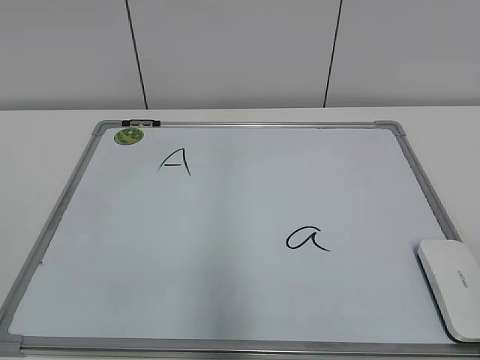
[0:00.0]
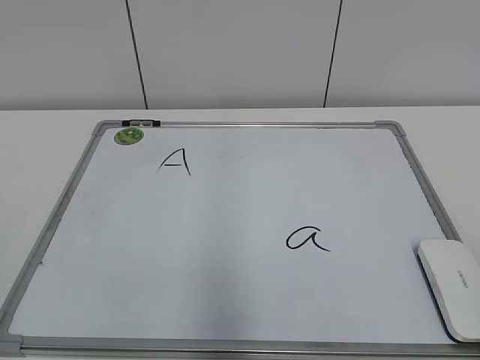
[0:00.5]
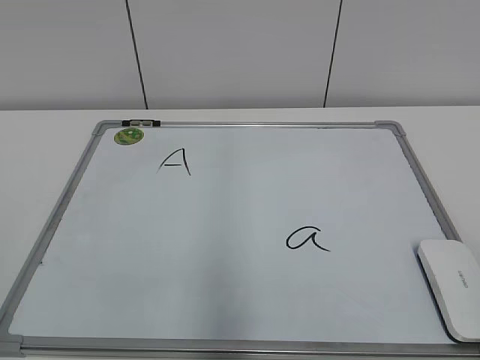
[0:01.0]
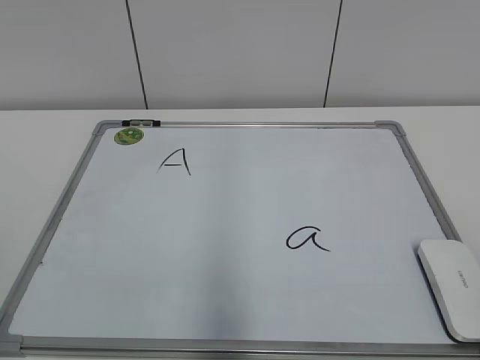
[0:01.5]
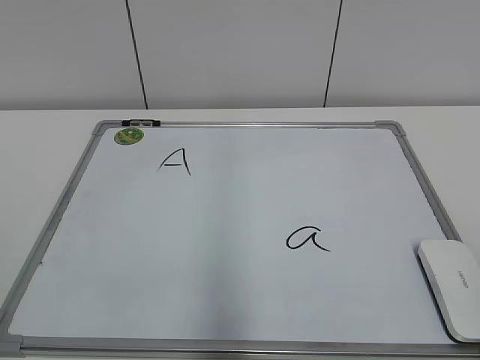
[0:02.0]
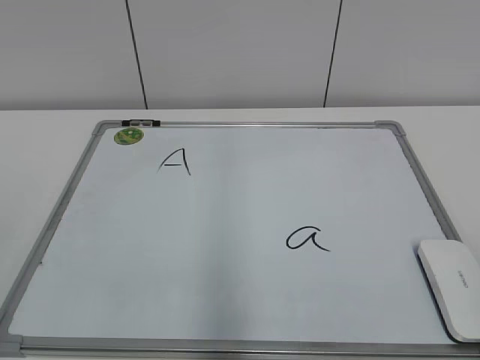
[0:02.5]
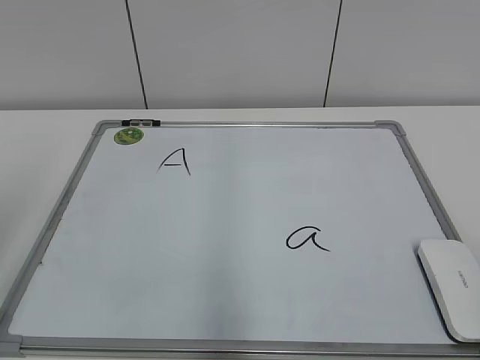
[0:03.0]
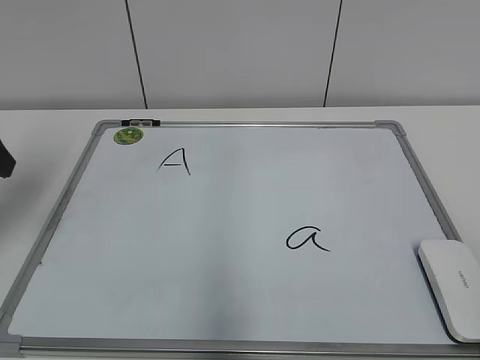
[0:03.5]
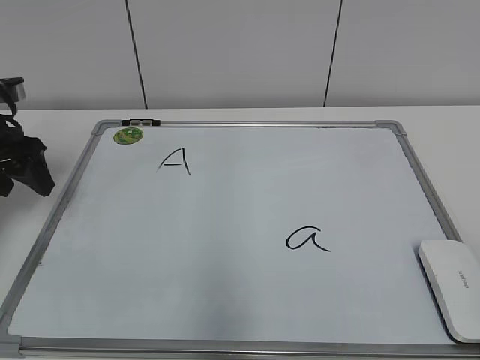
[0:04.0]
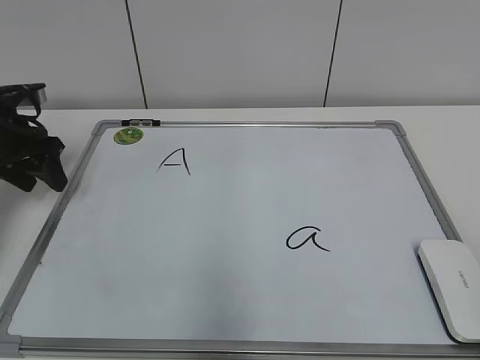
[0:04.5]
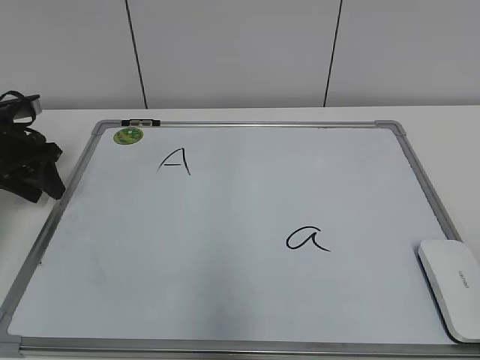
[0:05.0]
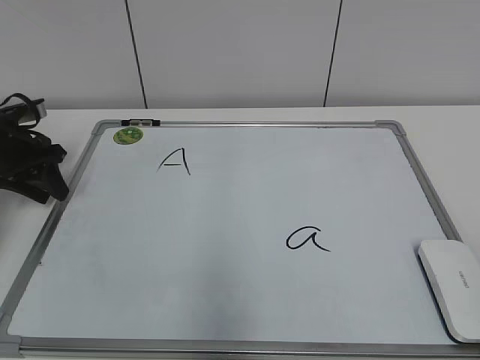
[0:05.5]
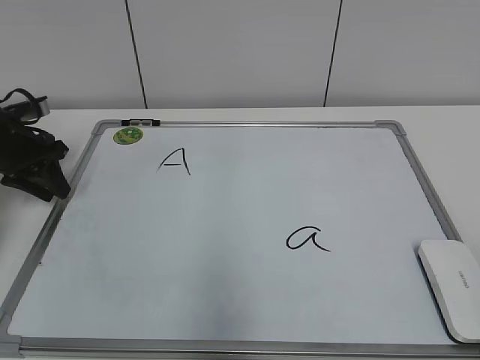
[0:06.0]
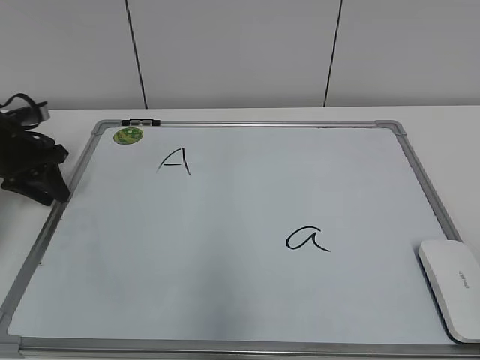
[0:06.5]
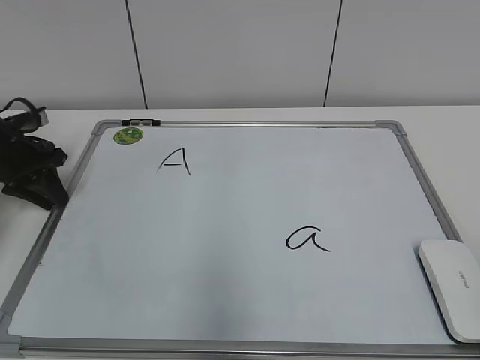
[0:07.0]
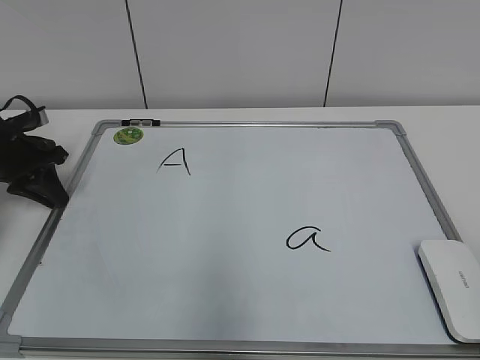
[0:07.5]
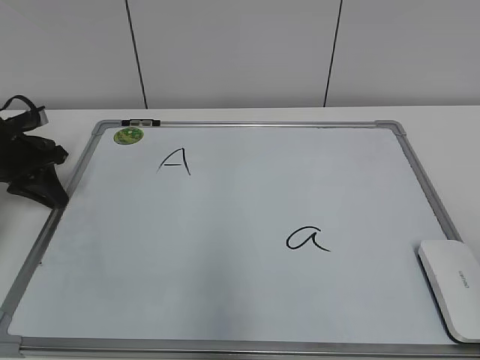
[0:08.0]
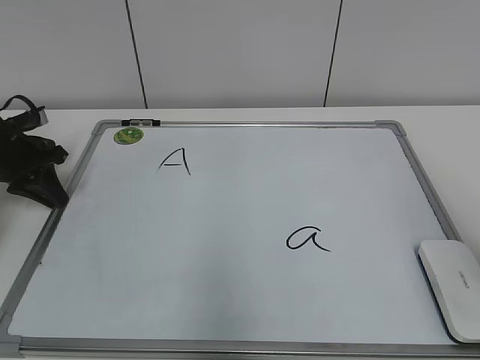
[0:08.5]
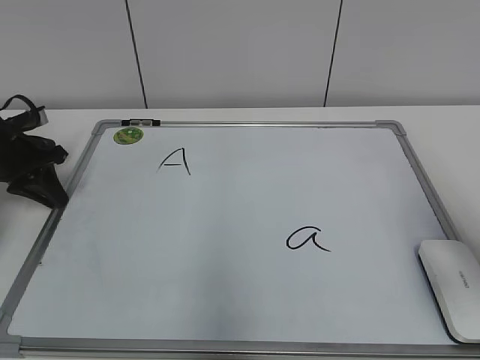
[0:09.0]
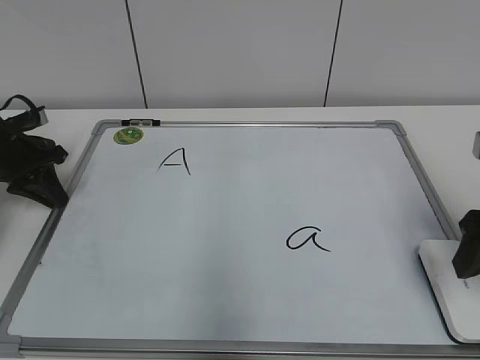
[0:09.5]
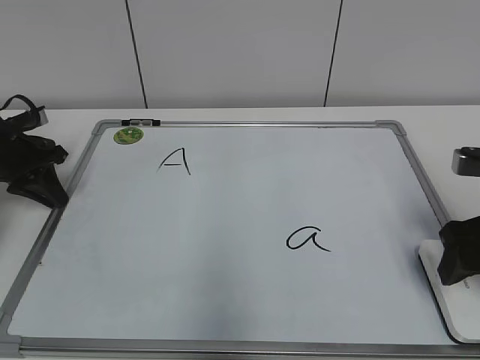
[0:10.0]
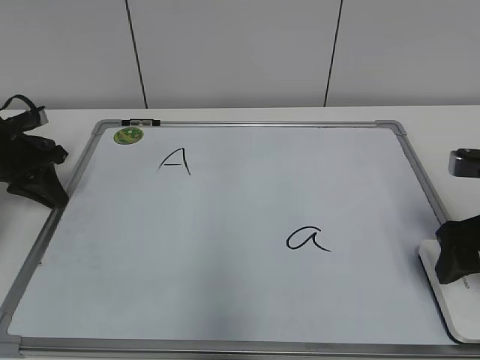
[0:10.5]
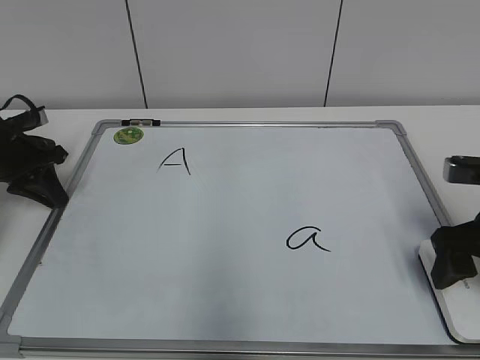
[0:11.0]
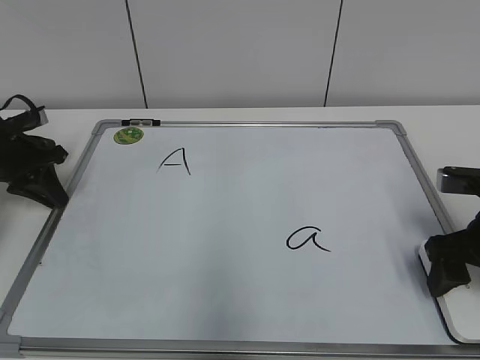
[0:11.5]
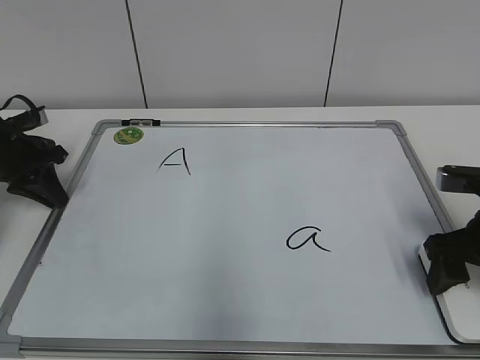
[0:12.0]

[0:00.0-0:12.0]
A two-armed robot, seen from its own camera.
Task of the whole recording: pick up the eraser on the blackboard and erase the letter "a".
Step, 0:00.0 to 0:08.5: Hold the drawing board steady with your left hand.
Step, 0:09.0 to 0:11.5: Grab the eraser with your right hand.
0:02.0 to 0:04.0: The left gripper heads forward, covering approximately 35 cm, and opens its fingers.
0:04.0 to 0:06.0: The left gripper goes some 10 cm forward and downward, and closes its fingers.
0:06.0 to 0:08.0: The left gripper closes.
0:08.0 to 0:10.0: The right gripper goes roughly 25 cm forward and downward.
0:10.0 to 0:12.0: The grippers stay close to where they were, moving slightly.

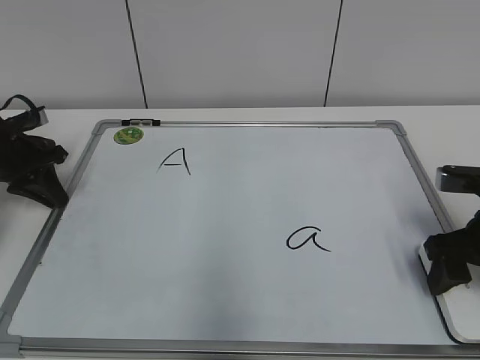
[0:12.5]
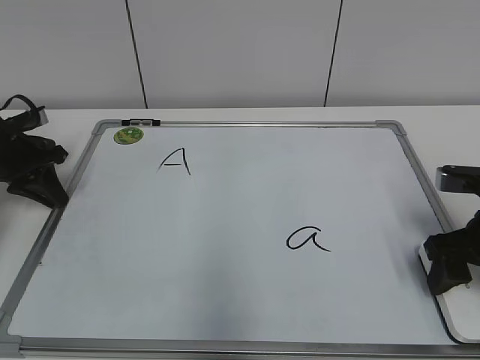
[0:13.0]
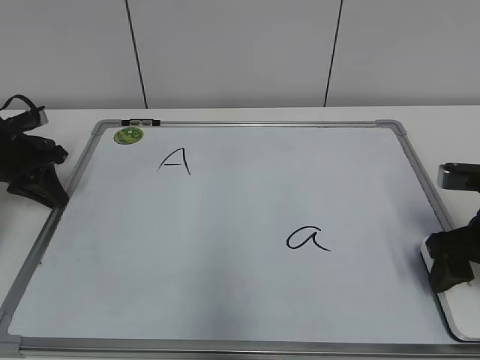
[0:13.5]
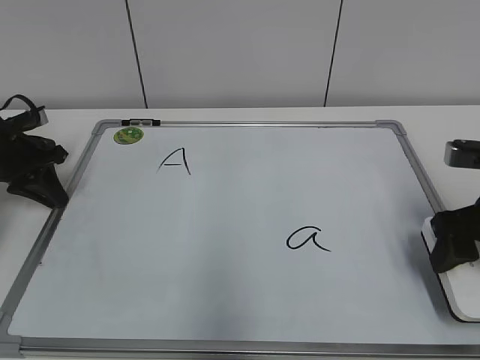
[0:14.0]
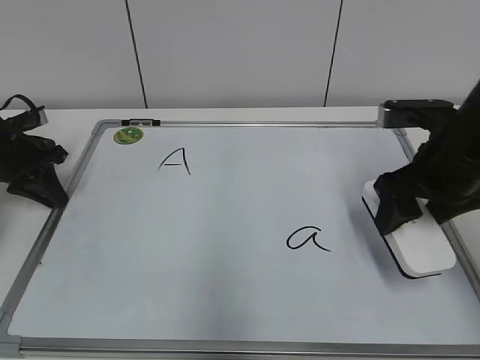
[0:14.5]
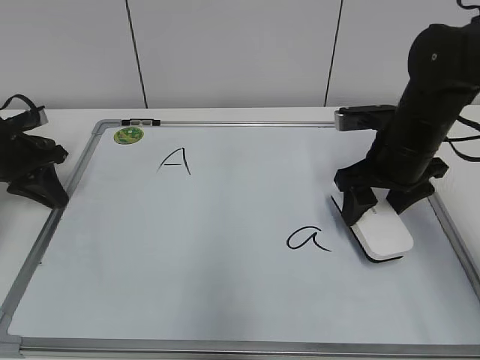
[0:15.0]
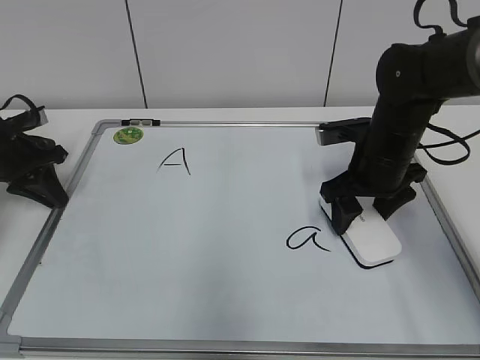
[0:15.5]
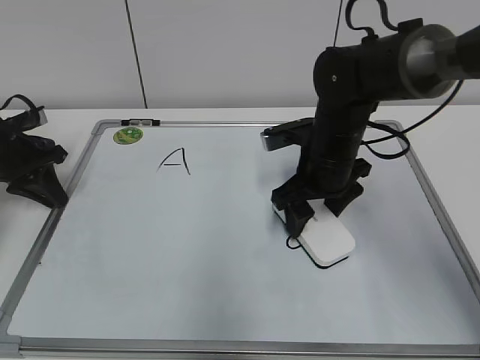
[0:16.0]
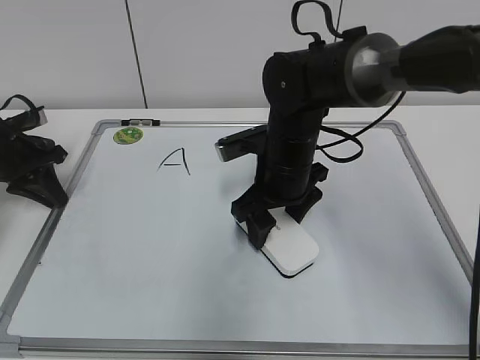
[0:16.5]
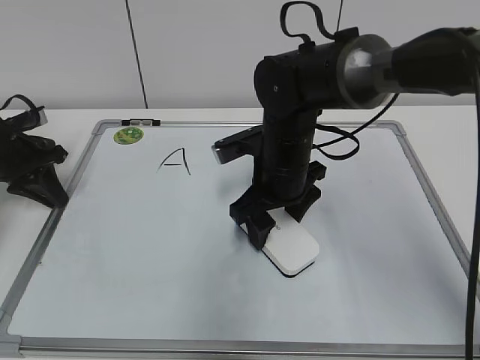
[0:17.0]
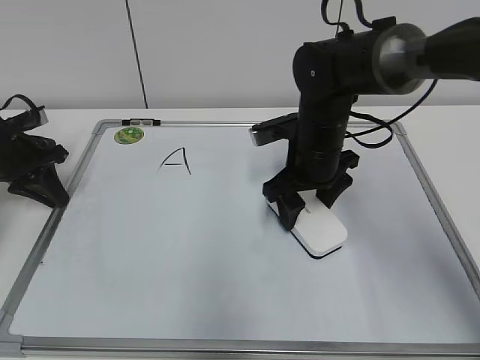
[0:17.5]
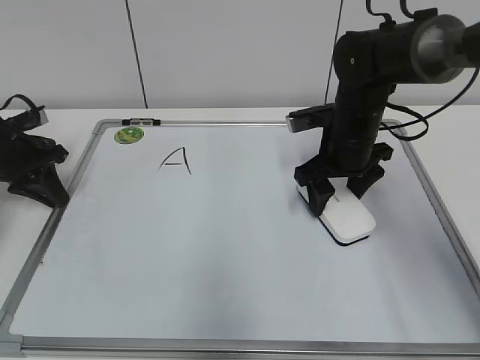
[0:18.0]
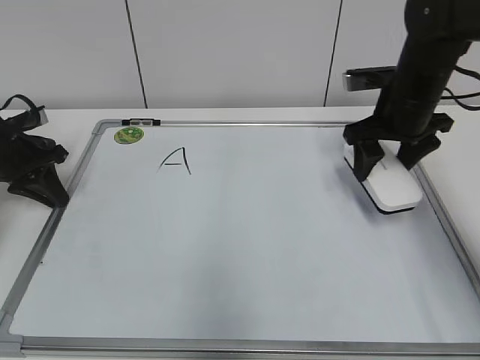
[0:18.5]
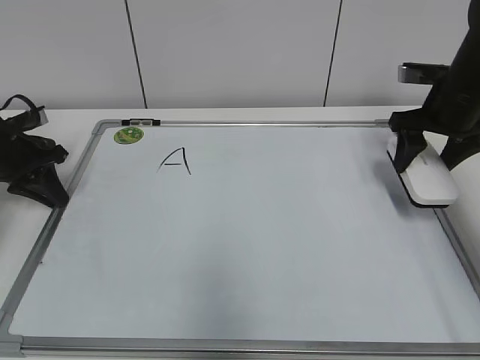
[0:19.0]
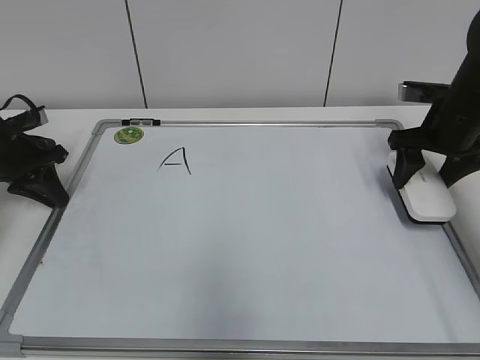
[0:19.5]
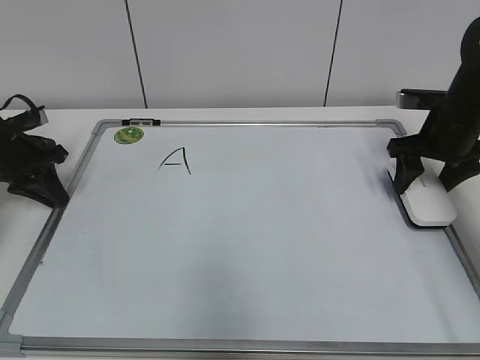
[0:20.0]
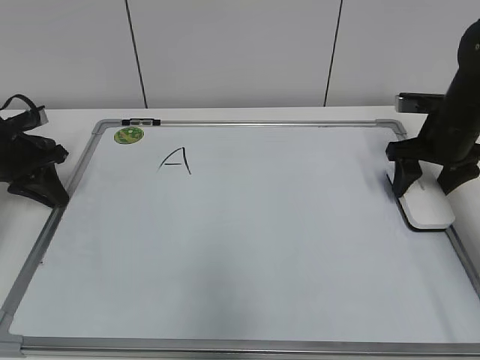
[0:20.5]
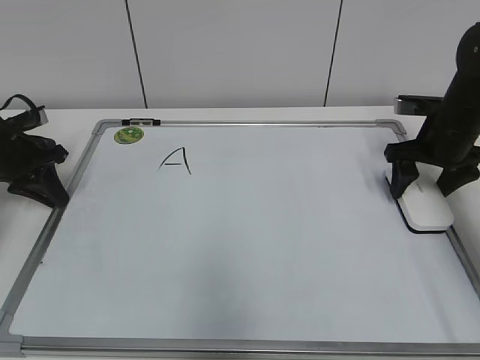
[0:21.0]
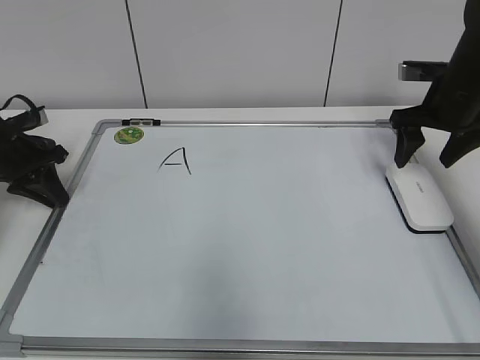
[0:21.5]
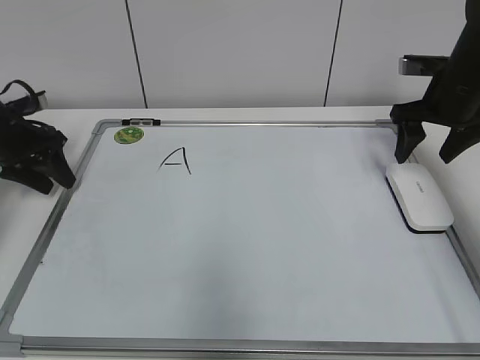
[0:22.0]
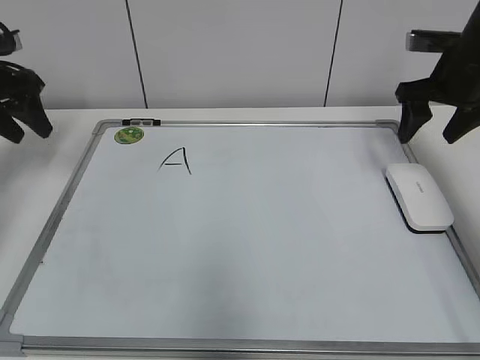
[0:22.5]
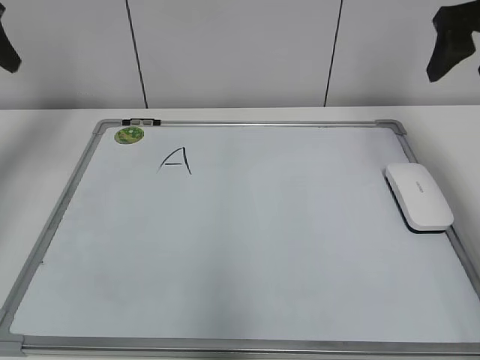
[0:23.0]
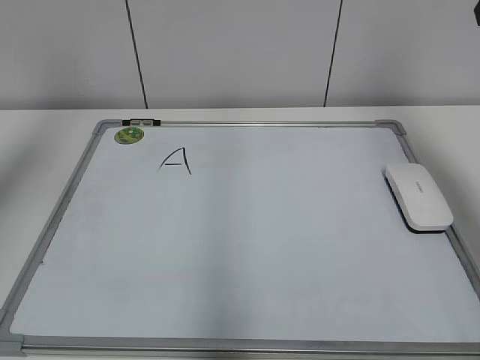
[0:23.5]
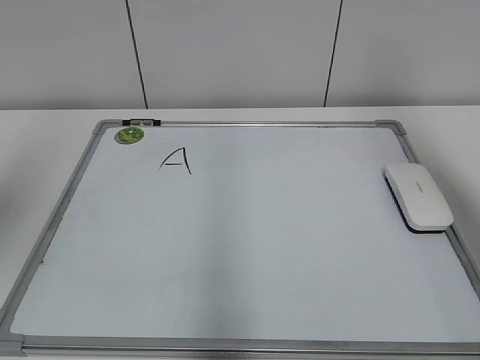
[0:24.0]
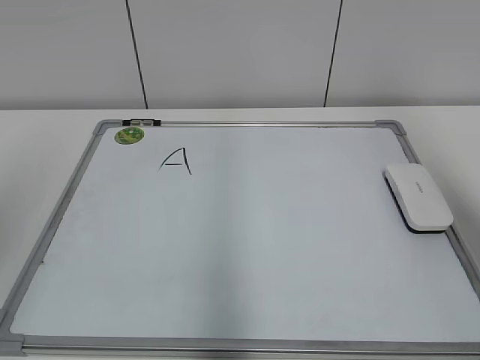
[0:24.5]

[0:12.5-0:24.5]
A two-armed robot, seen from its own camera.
Task of the whole recording: pick up the eraser on the blackboard and erase the letter "a".
Step, 0:12.5 to 0:17.5: Erase the letter a with your right hand.
Step, 0:18.0 to 0:20.0: Put down the eraser with your right hand.
0:12.5 to 0:14.5: The right gripper heads upward and to the left, covering roughly 10 cm.
0:14.5 to 0:16.5: The right gripper goes about 15 cm to the left.
0:16.5 to 0:18.5: The right gripper heads to the right, covering about 15 cm.
0:18.5 to 0:20.5: The right gripper travels to the right by some 10 cm.
0:20.5 to 0:22.5: The two grippers go approximately 10 cm upward. The left gripper opens its fingers.
0:22.5 to 0:24.5: Both grippers move backward and upward, about 30 cm.
